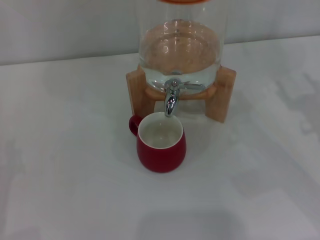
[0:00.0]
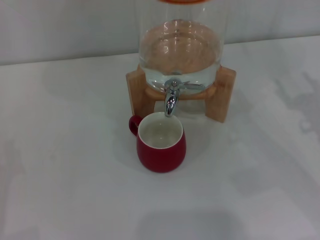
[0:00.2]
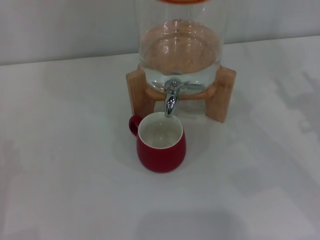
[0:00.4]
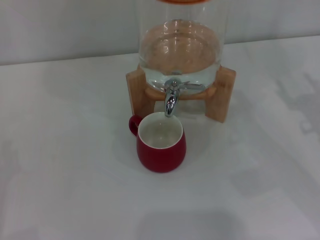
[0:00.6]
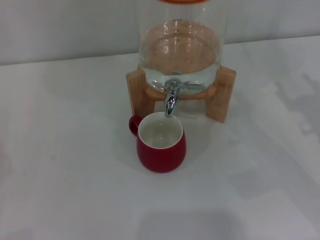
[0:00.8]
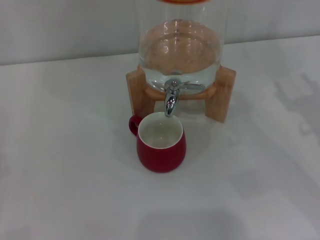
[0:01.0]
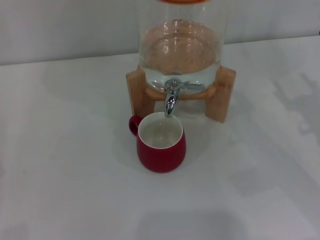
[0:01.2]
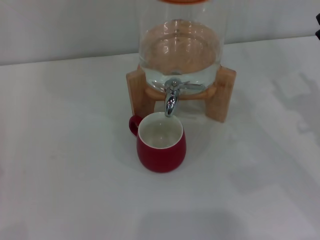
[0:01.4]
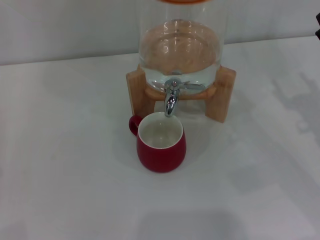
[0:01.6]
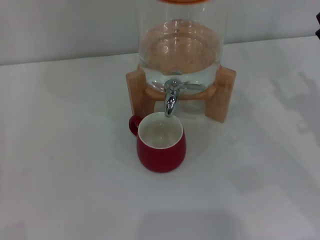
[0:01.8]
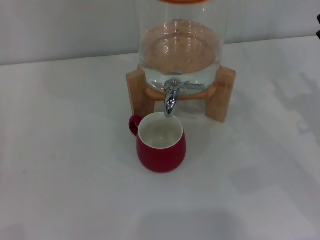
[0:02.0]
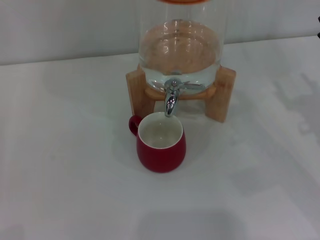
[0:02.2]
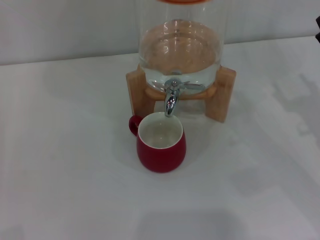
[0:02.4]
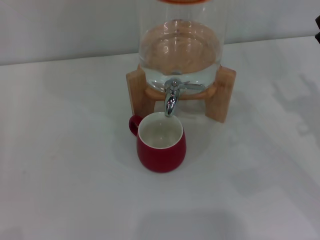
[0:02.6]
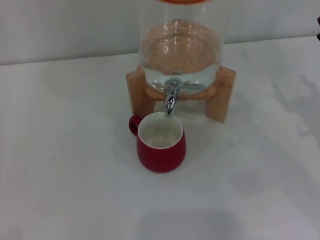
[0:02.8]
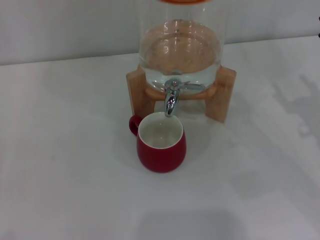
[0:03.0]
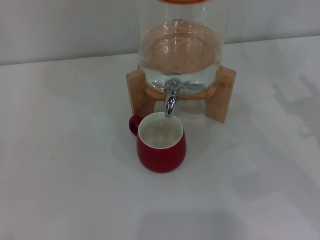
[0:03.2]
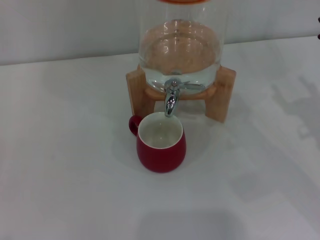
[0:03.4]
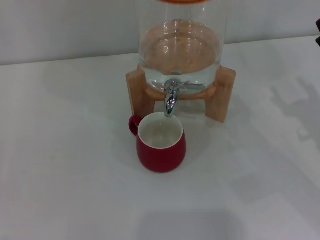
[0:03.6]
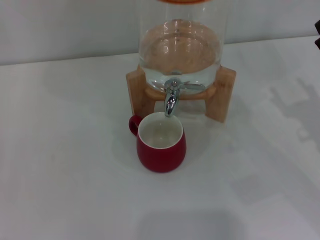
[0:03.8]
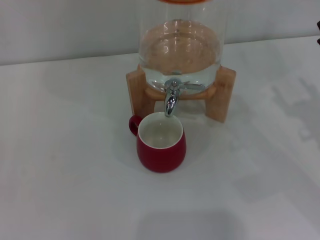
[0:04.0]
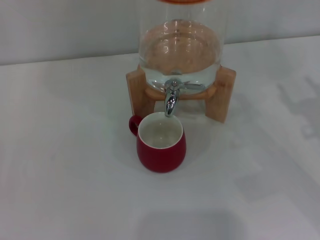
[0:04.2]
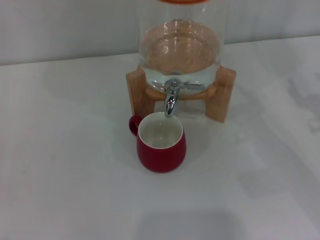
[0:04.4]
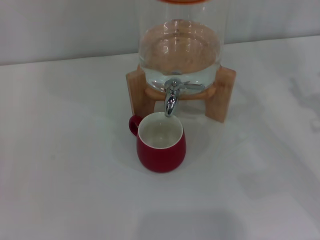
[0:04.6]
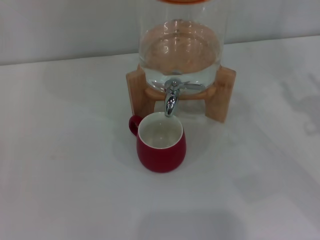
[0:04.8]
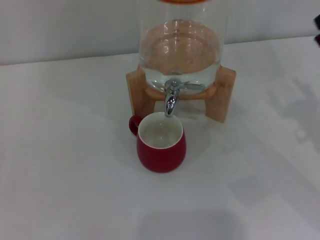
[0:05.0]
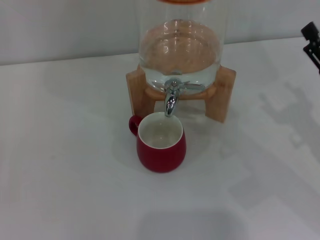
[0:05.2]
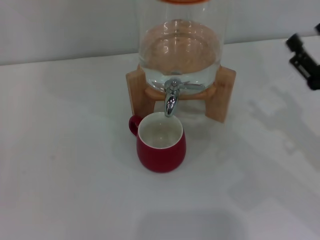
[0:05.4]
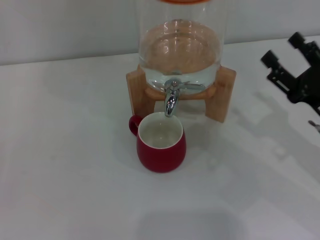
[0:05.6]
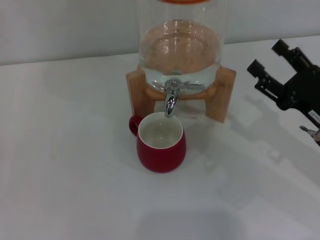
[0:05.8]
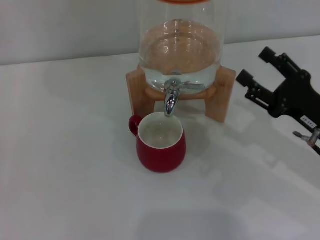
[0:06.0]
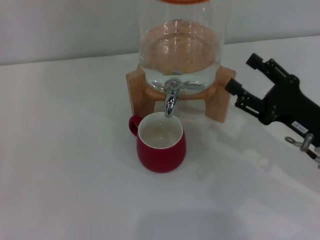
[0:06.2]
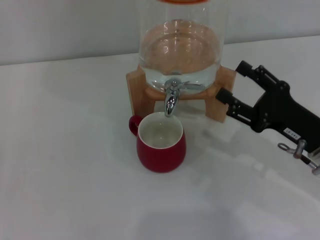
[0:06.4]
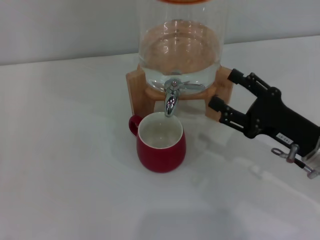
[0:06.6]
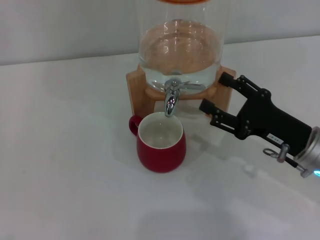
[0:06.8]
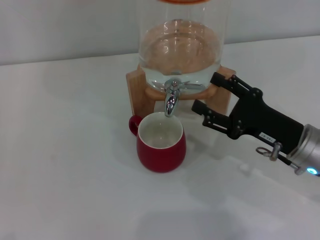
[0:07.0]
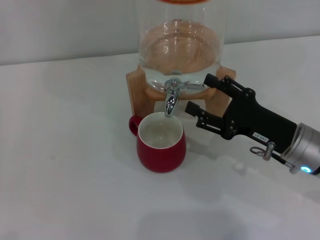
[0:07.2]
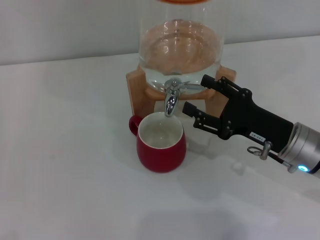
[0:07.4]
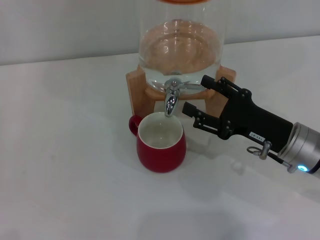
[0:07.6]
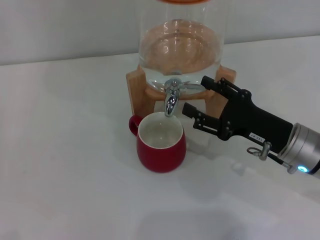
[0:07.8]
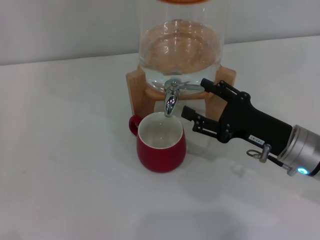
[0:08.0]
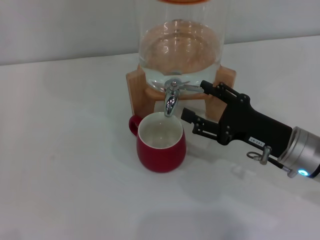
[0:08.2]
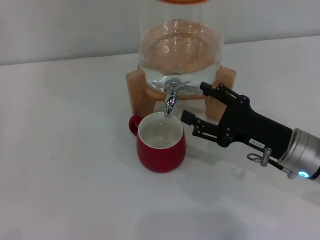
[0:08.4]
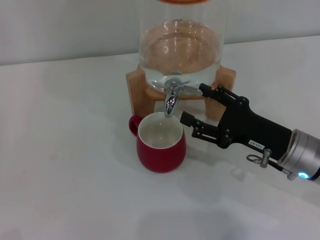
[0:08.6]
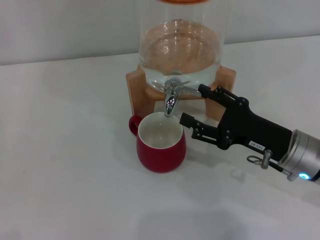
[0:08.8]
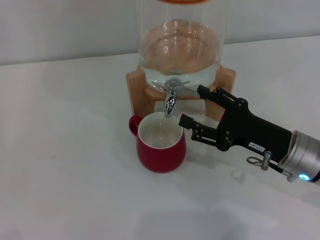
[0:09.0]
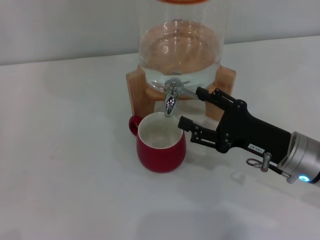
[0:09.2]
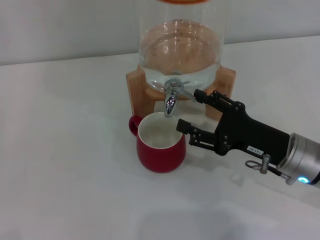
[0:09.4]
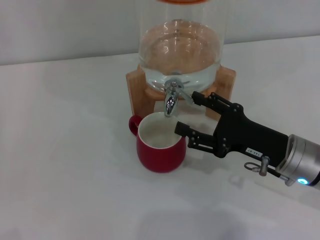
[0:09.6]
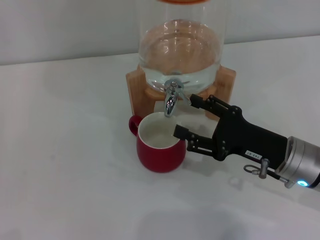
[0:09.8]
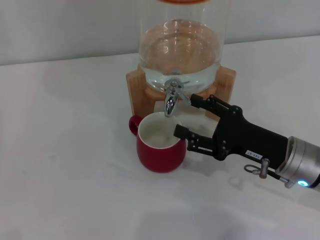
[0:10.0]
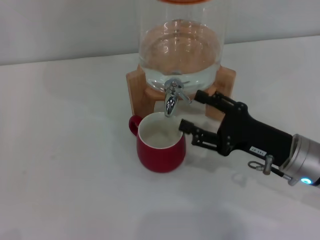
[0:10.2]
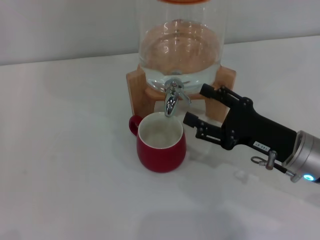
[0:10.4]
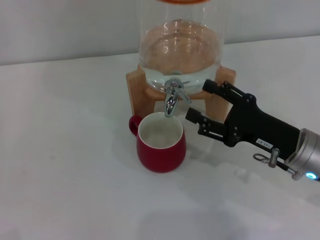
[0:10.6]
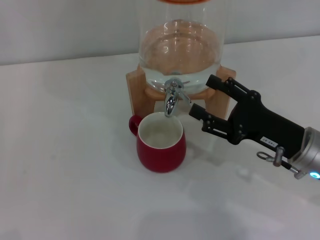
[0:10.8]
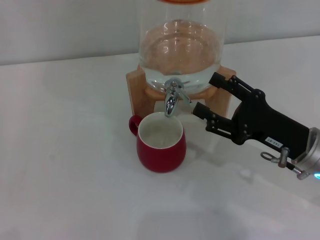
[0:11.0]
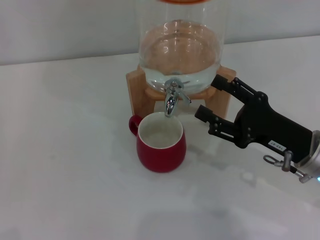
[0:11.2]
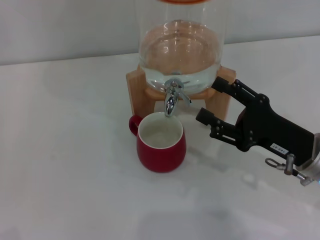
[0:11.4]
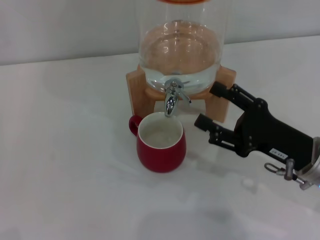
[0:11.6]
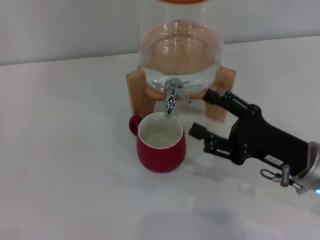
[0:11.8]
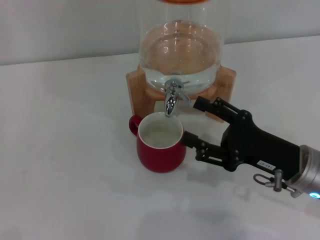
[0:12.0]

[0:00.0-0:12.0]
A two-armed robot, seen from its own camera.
Task of the whole recording: the left gripper pick up the red cup and place it horizontally under the faucet, the right gripper turn on the faucet to fill the cup, and then turn off the faucet.
Step, 0:00.0 to 0:10.4: Open the dispenser valve and fill the cup with water with the right gripper.
0:04.4 to 0:06.0: The right gripper travels to the left by roughly 5 cm.
0:06.0 to 0:07.6: The right gripper heads to the left, covering some 5 cm.
0:07.6 to 0:09.0: Both grippers stay put.
0:09.0 to 0:10.4: Both grippers stay about where they are.
0:10.4 to 0:12.0: The grippers make only small movements.

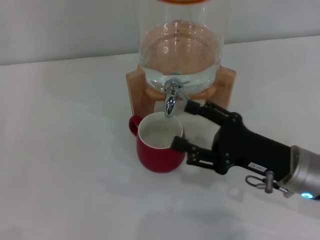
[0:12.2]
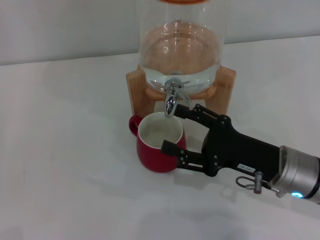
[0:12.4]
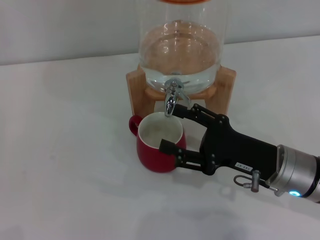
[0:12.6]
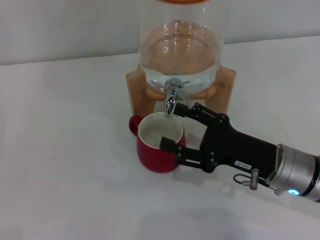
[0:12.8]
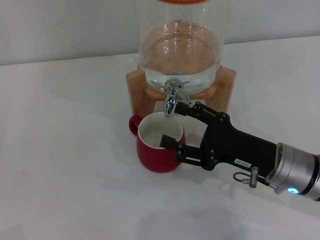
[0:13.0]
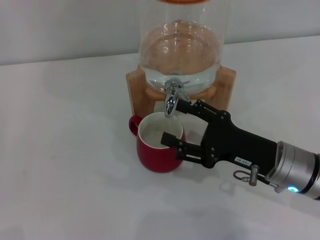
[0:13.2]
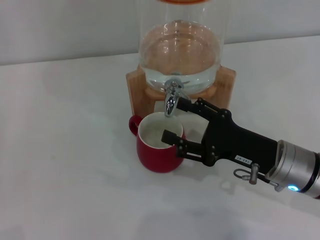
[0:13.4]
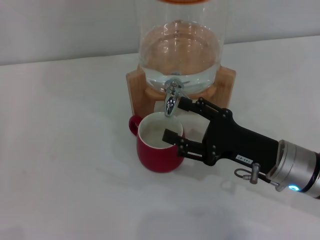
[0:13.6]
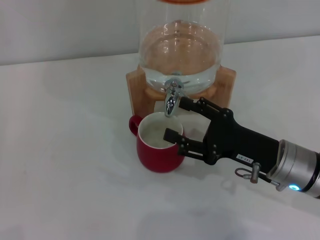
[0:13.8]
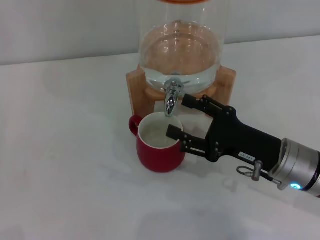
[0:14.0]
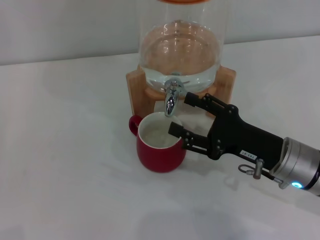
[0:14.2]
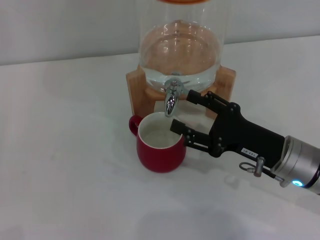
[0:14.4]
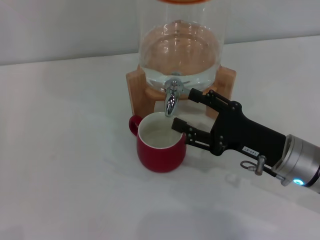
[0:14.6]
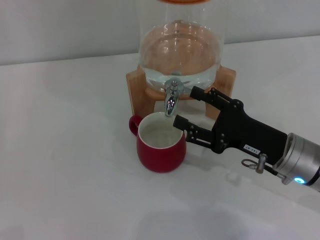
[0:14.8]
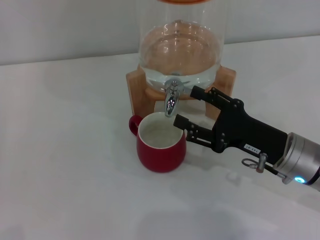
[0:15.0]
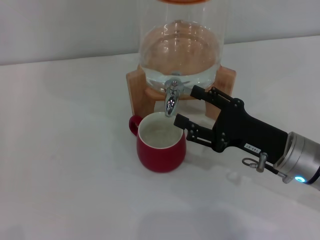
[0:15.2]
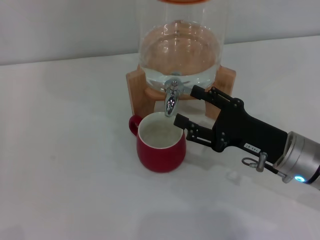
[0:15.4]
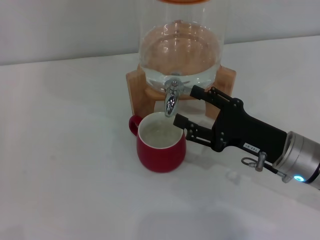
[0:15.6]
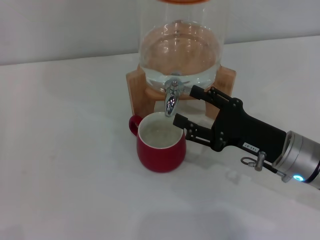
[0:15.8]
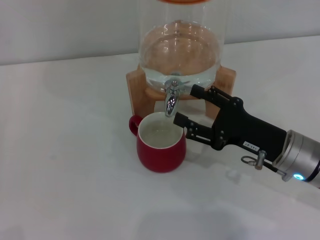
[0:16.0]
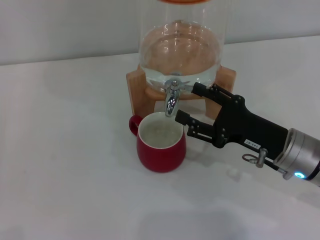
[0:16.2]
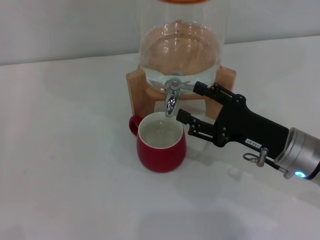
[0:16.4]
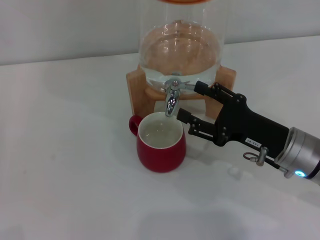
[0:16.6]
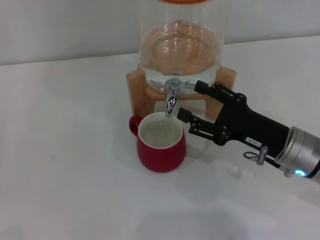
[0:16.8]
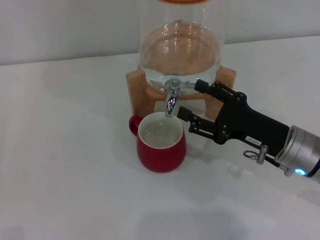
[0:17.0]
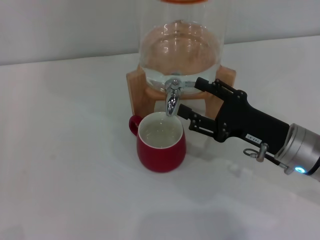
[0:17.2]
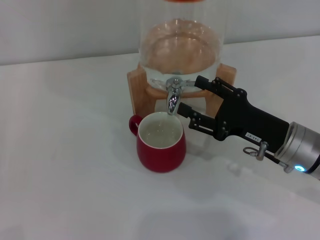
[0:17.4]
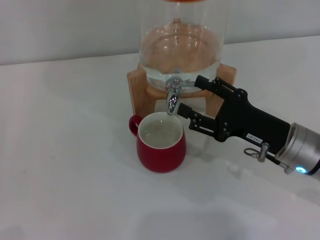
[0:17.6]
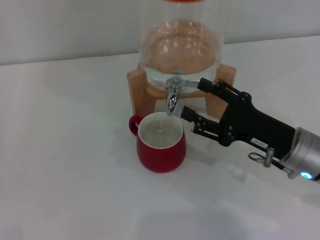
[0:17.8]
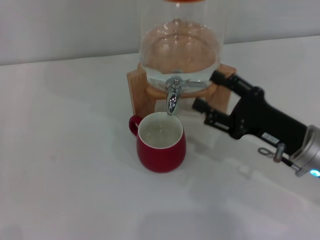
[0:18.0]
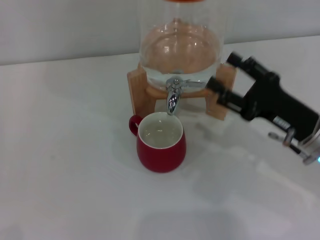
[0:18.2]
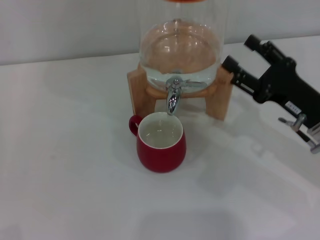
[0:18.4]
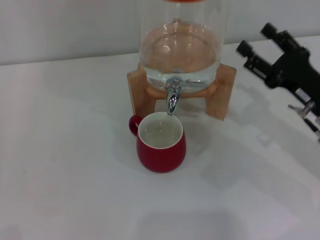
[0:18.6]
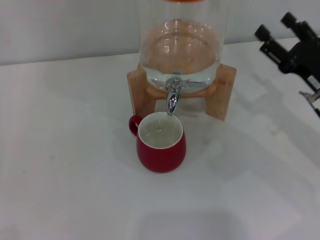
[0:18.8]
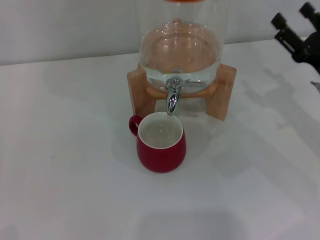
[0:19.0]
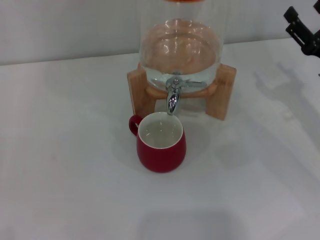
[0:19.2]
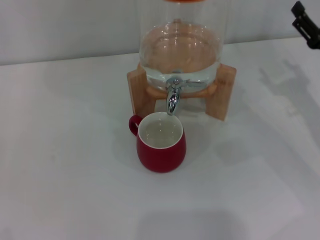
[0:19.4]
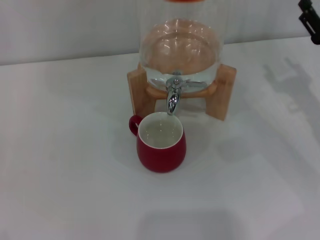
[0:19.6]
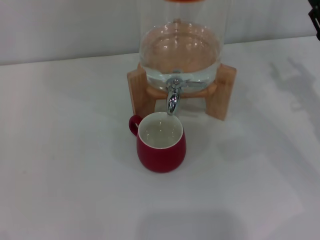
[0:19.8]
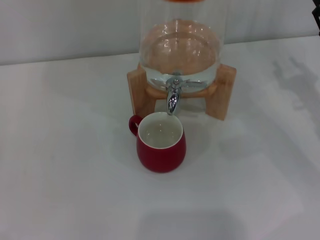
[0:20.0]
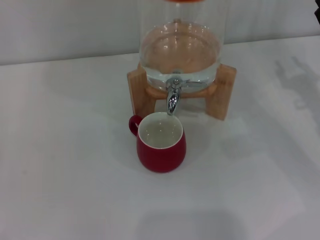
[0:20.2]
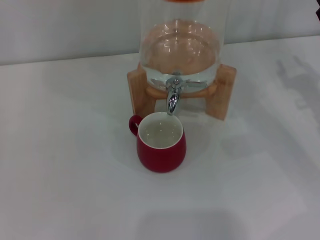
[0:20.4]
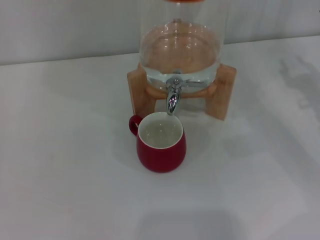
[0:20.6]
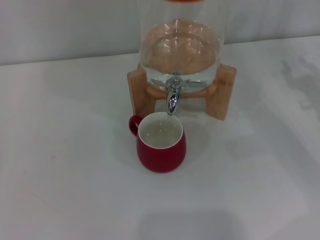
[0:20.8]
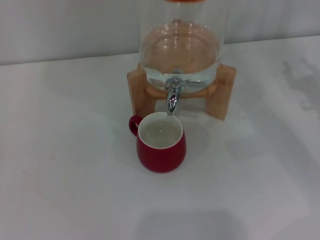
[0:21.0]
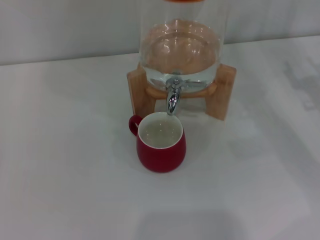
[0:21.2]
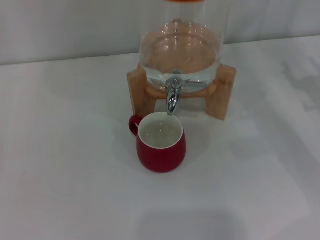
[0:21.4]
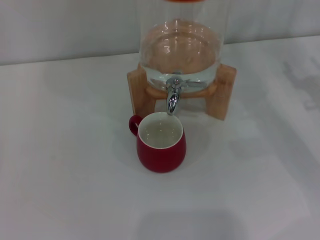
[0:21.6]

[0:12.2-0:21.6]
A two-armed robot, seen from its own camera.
Task of the whole recording: the left gripper pick up the red cup and place it horizontally under the faucet, the right gripper turn on the faucet to fill the cup, and then turn off the faucet.
Step, 0:12.2 to 0:17.8: Close the dispenser valve with the right gripper.
0:12.2 to 0:13.8: The grippers stay close to where they were, moving slightly.
0:13.8 to 0:15.4: The two grippers keep their place.
0:15.4 to 0:17.0: Both grippers stay put.
0:17.0 to 0:18.4: The grippers stay close to where they were, moving slightly.
0:18.4 to 0:20.0: The right gripper travels to the right by about 5 cm, and closes its fingers.
